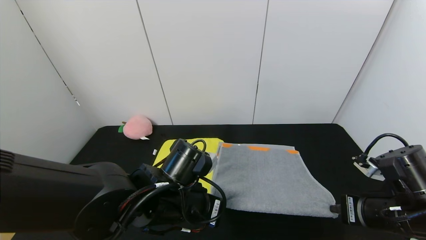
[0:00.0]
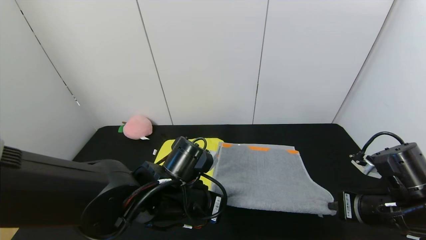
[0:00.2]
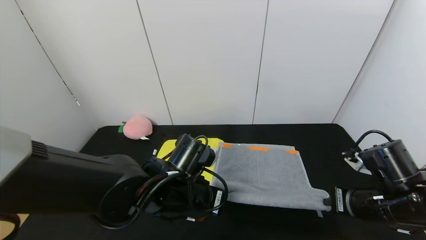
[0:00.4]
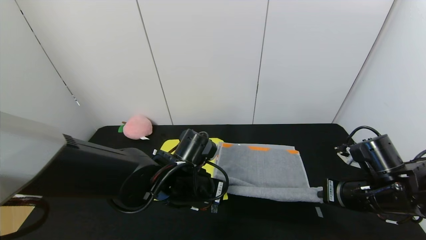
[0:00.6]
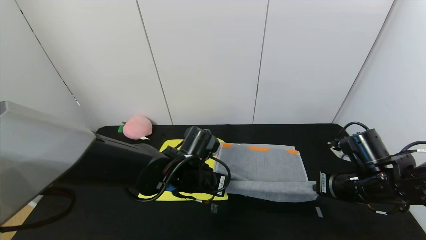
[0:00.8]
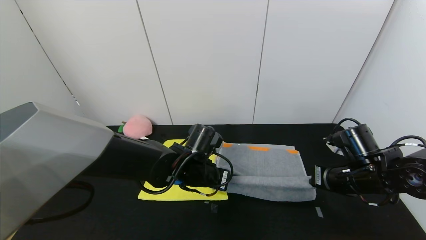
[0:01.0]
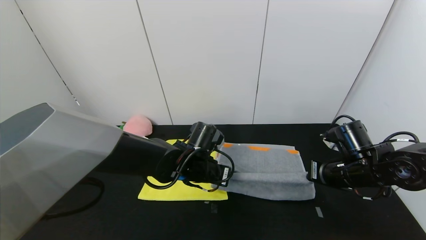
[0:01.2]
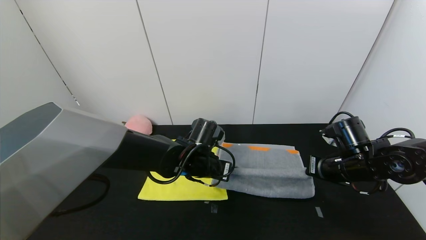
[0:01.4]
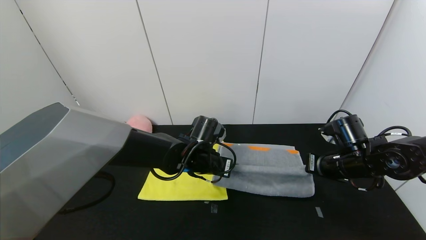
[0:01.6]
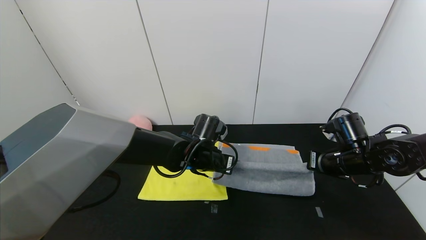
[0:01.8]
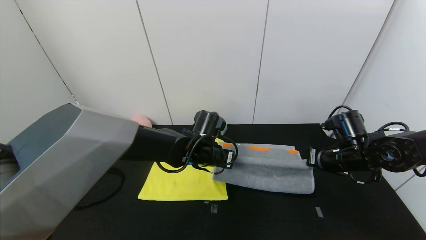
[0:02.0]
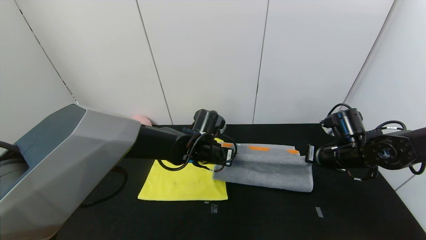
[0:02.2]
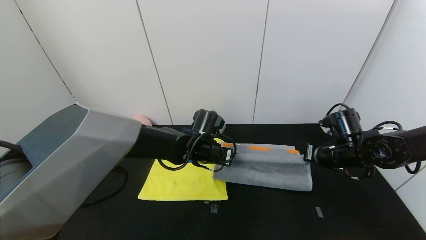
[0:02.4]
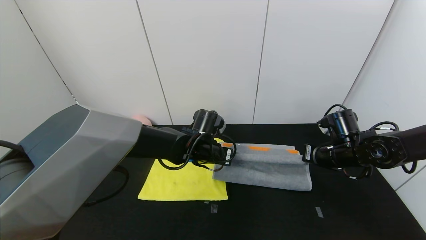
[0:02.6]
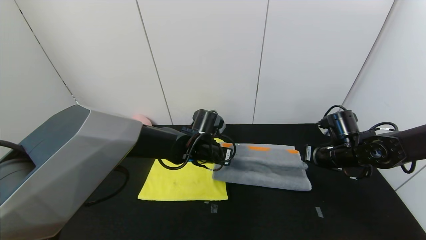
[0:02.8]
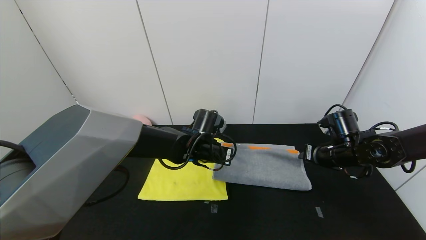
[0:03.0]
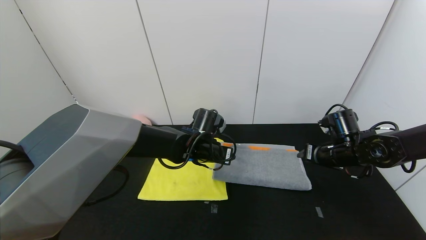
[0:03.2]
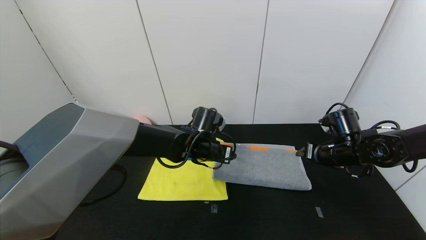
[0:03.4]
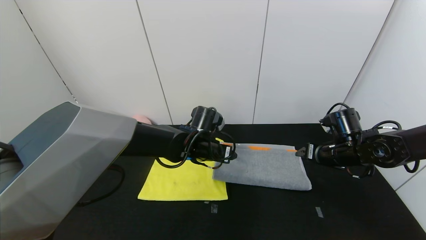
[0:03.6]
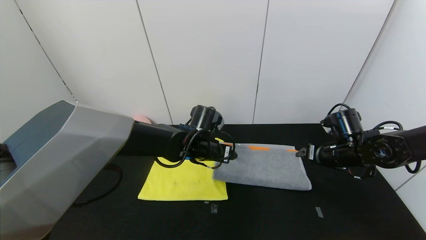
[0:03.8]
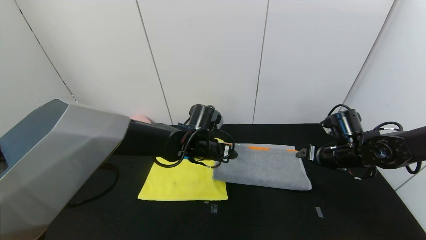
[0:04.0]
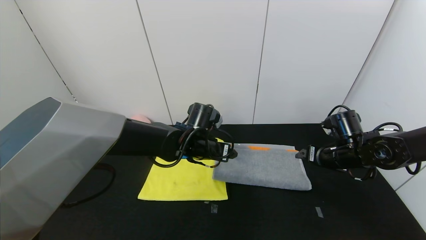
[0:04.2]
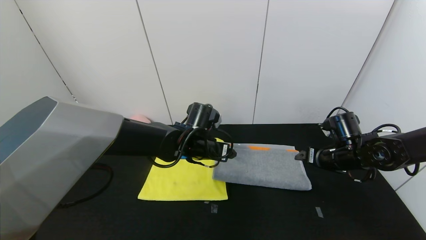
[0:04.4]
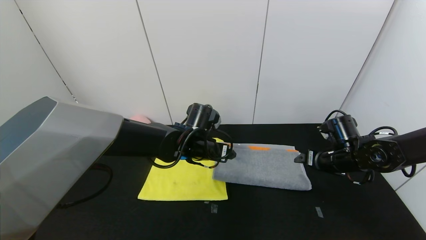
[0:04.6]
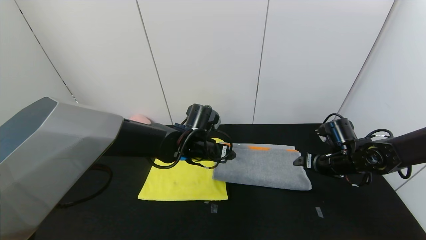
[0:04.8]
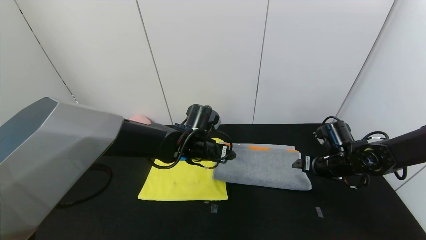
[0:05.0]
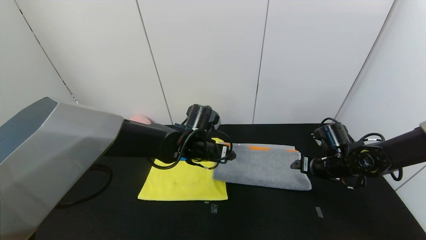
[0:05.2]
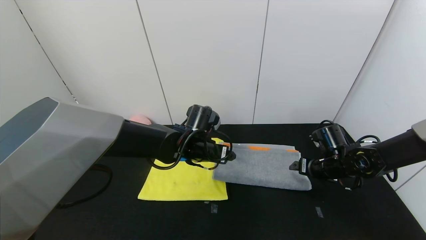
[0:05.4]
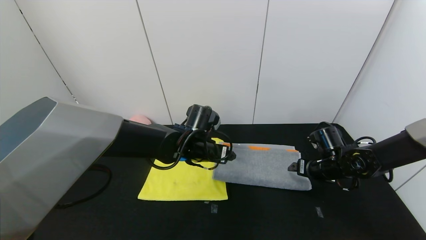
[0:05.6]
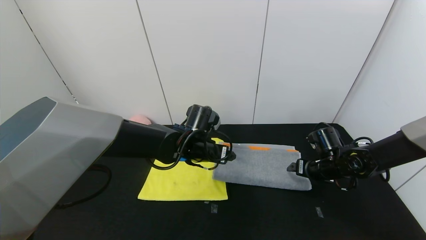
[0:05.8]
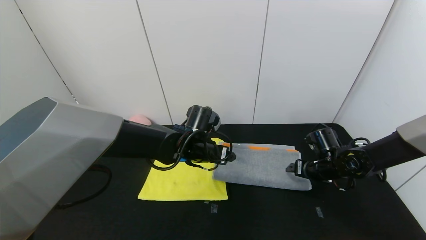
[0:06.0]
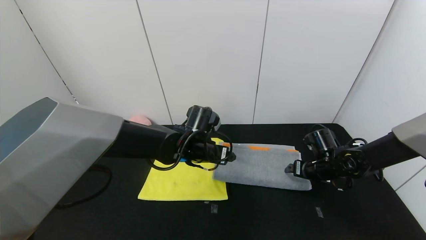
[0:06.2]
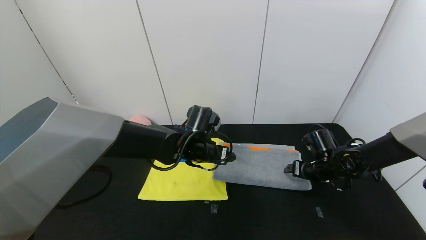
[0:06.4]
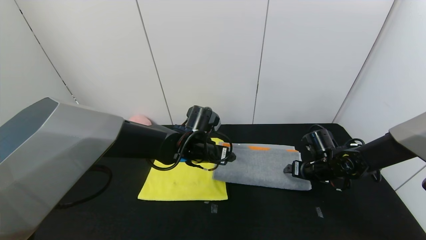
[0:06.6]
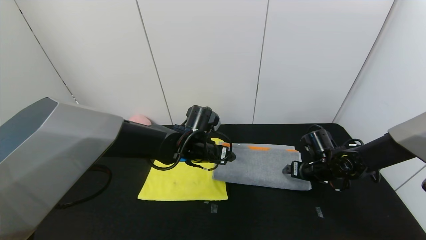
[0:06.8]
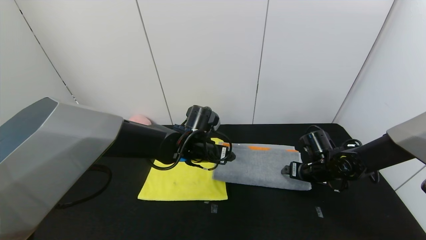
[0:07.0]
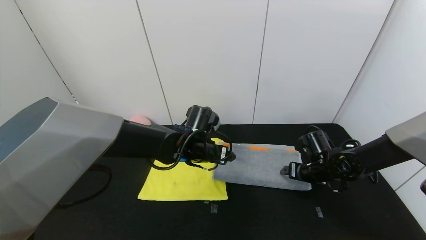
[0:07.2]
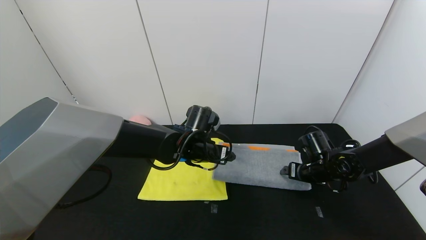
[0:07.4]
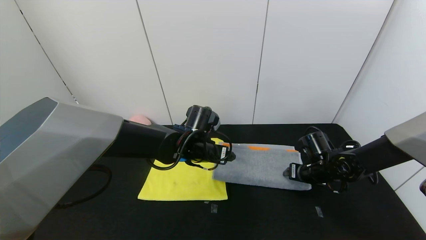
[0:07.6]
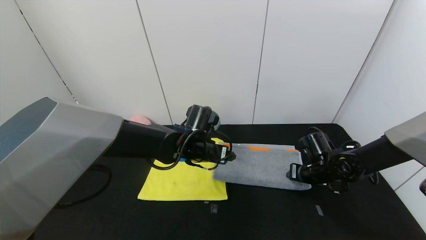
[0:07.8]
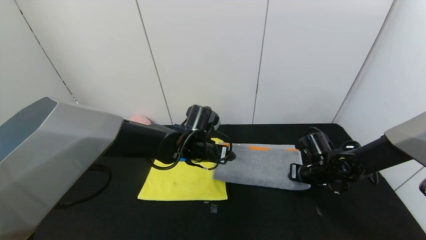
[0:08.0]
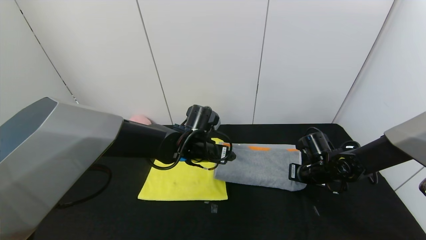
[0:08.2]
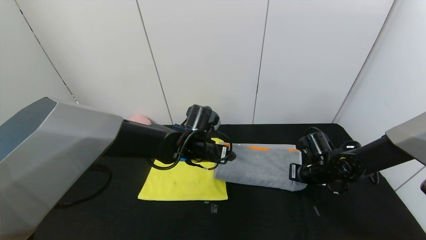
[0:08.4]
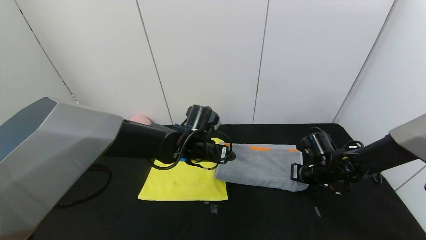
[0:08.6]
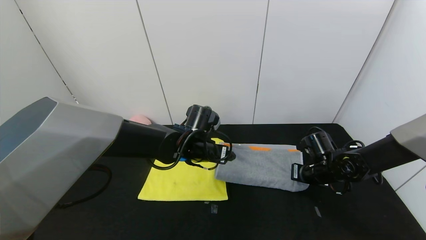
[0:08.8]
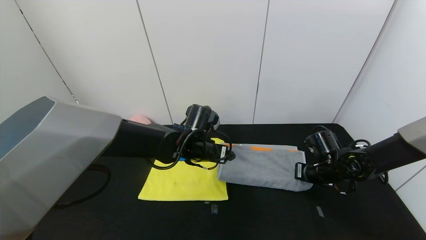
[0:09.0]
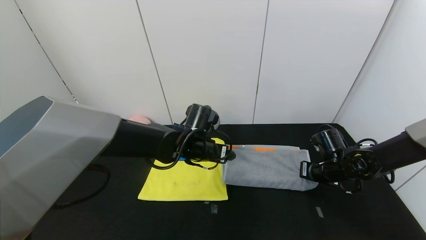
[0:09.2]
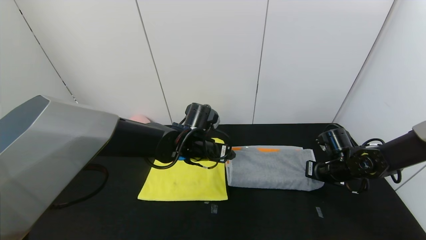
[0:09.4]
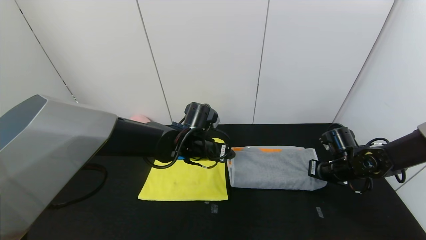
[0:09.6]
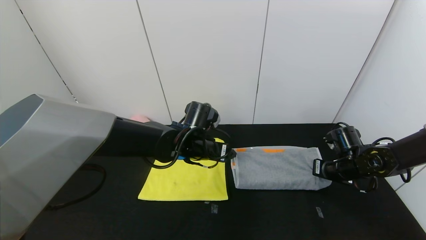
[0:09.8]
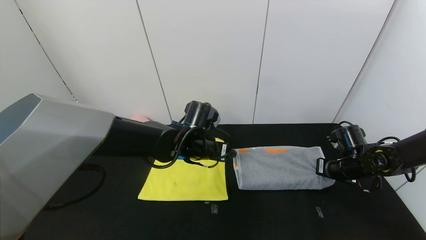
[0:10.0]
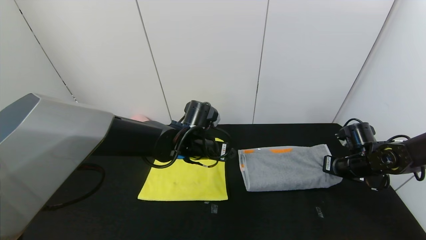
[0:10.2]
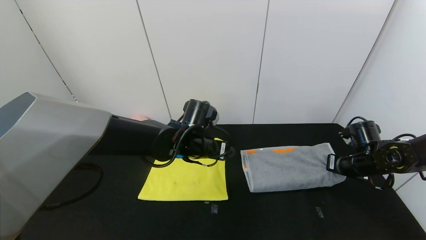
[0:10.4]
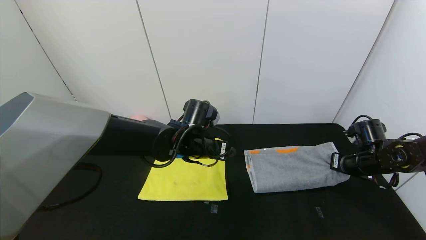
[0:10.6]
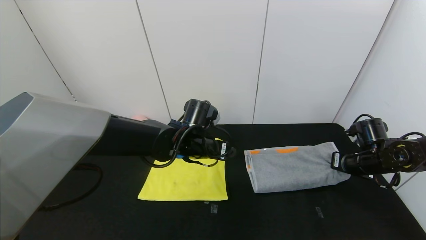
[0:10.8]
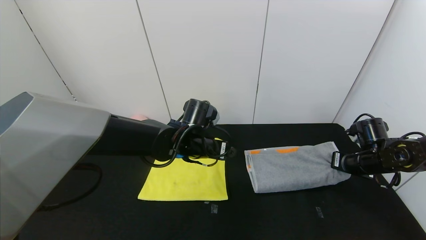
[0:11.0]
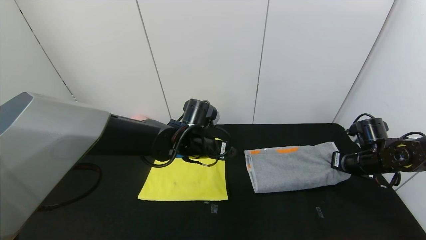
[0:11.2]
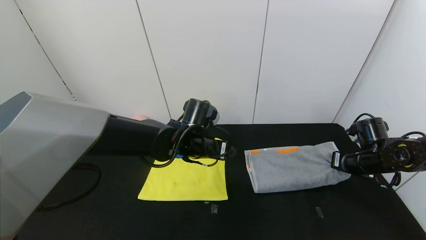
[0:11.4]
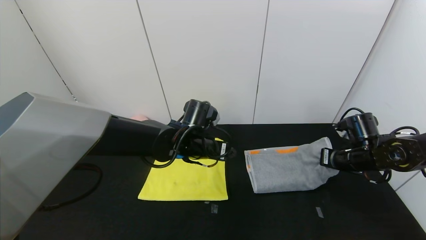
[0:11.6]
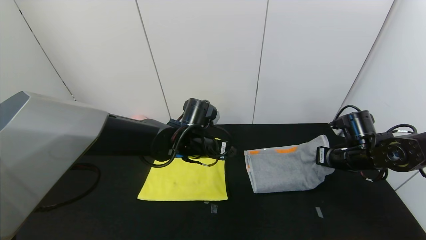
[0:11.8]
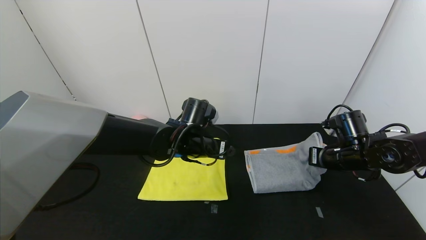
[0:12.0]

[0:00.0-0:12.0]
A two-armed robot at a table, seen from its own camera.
Task of the whole recording: Use the gripper to fold the yellow towel and grey towel in half twice,then put the yellow towel on the grey towel.
Step, 0:00.0 to 0:03.8: Fold the gray towel upwards with the left gripper.
0:00.0 to 0:01.6: The two grippers go some 10 cm forward.
0:01.6 to 0:03.0: The right gripper opens its fingers, while the left gripper opens.
0:03.0 to 0:04.4: The right gripper opens its fingers. Meanwhile the left gripper opens up.
0:04.4 to 0:06.0: The right gripper travels downward by about 5 cm.
0:06.0 to 0:07.6: The grippers make only small movements.
0:07.6 to 0:09.0: The right gripper closes up.
0:09.0 to 0:10.4: The right gripper is displaced to the right by some 10 cm.
0:10.4 to 0:12.0: The right gripper shifts about 5 cm to the left.

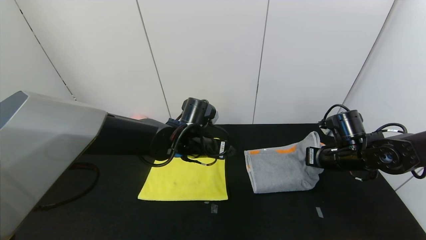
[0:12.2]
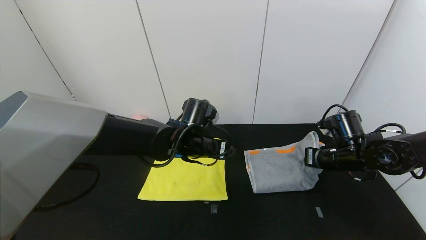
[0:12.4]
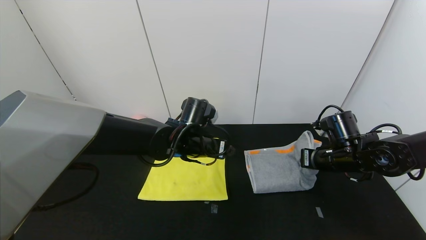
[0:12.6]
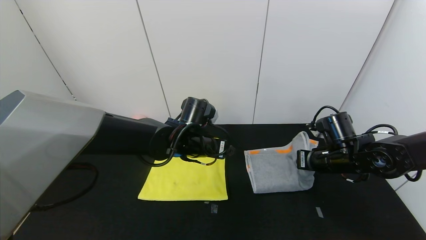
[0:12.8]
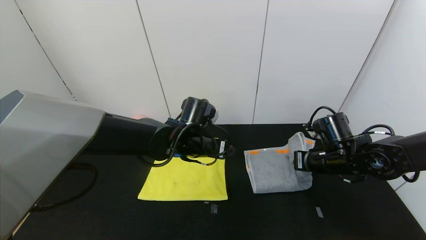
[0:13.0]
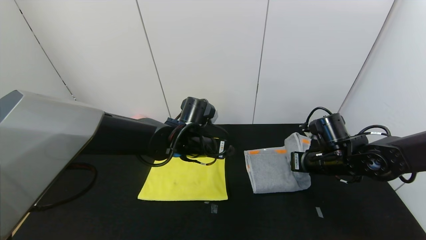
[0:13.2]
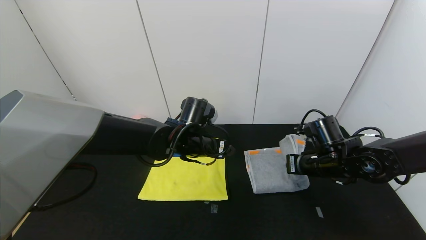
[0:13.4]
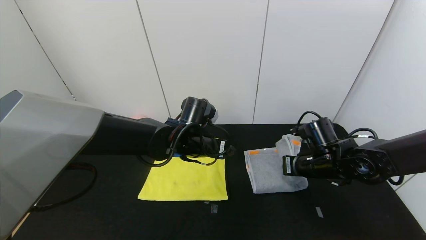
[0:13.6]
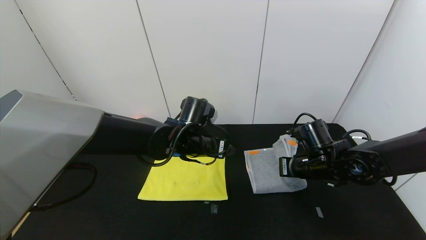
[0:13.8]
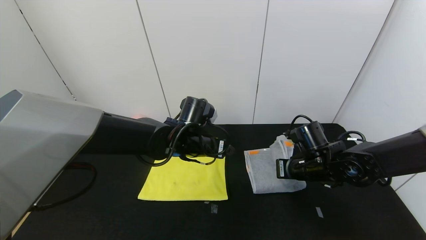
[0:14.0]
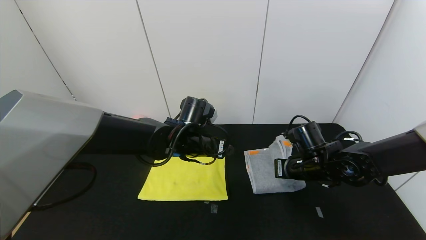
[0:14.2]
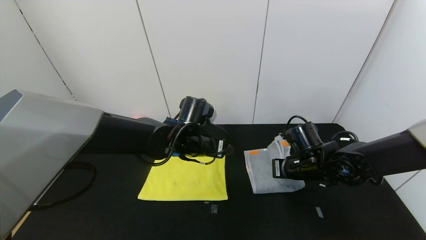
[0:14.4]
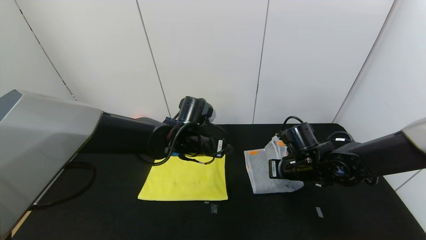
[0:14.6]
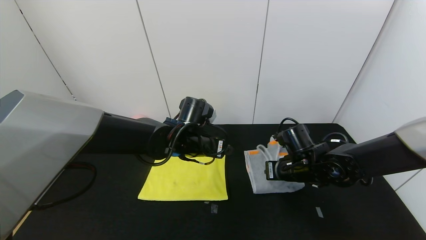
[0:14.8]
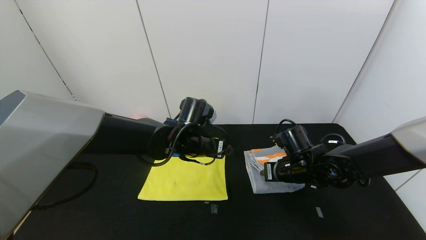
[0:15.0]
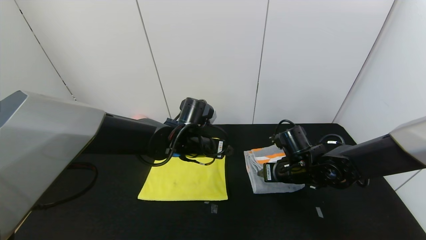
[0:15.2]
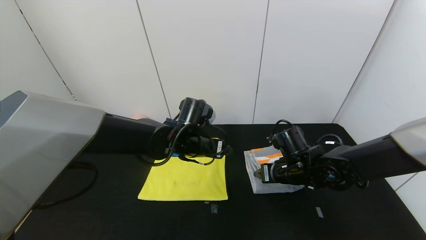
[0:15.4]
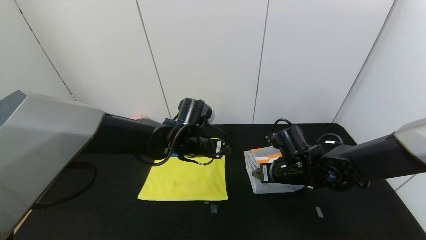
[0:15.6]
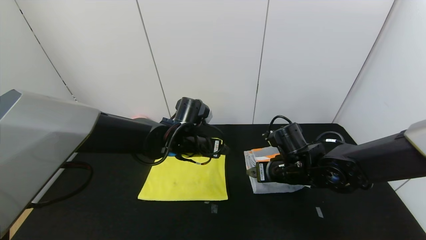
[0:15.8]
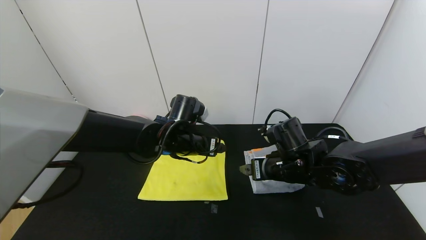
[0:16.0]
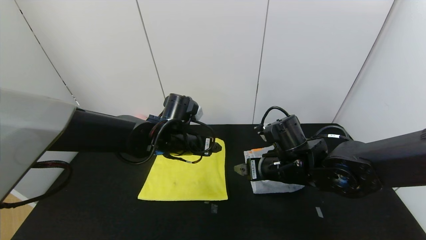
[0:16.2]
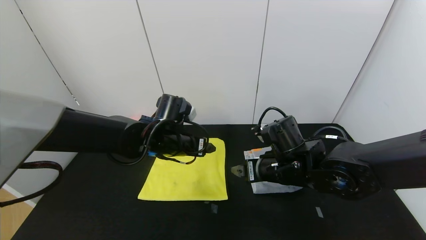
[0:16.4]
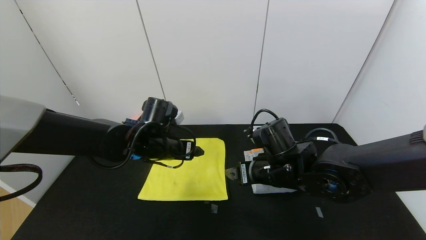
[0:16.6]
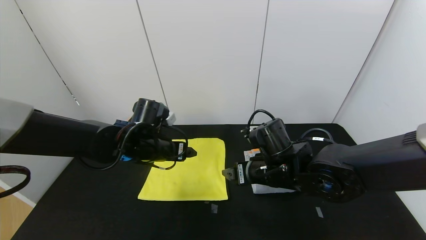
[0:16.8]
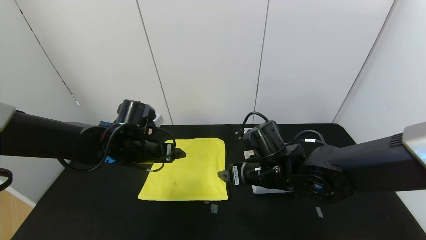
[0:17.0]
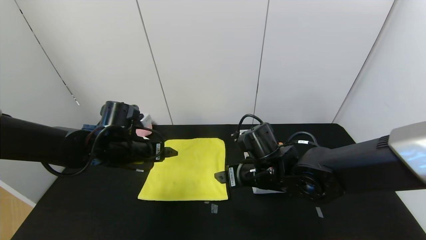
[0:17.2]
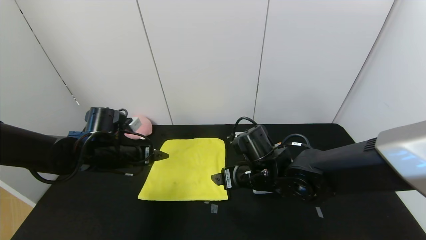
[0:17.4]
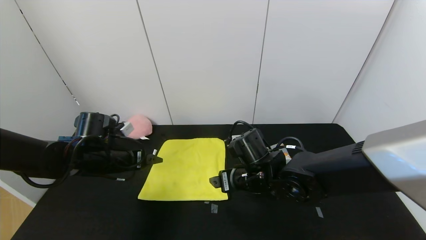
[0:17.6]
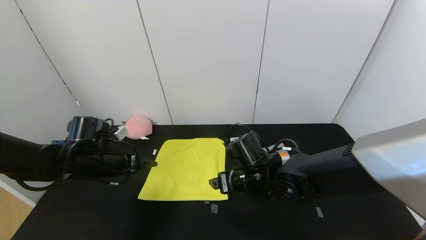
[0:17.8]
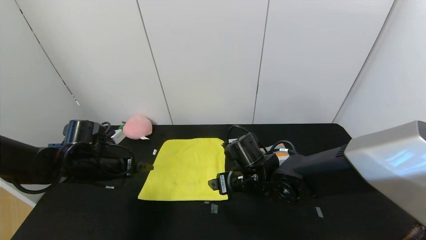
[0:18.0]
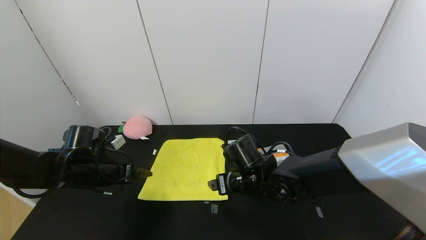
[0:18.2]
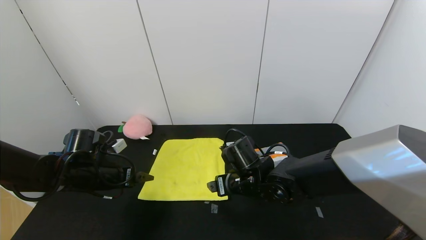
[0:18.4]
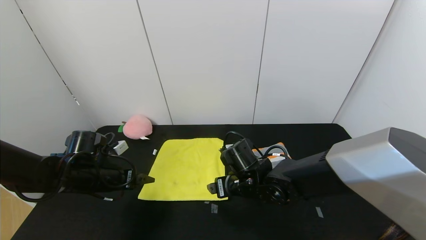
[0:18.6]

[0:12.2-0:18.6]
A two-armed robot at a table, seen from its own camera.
Task of the whole recording: Use the gripper to fold the yellow towel and grey towel in half twice,then put the yellow towel on the grey towel.
Step, 0:12.2 to 0:16.0: Fold the gray towel from right to left with right gripper.
0:12.2 to 0:13.8: The right gripper goes roughly 5 cm to the left.
0:13.8 to 0:15.4: The right gripper opens up.
0:15.4 to 0:17.0: The right gripper heads to the left, covering about 10 cm. The left gripper heads to the left, covering some 15 cm.
0:17.0 to 0:18.6: The left gripper moves to the left and downward, some 10 cm. The right gripper shifts some 5 cm downward.
